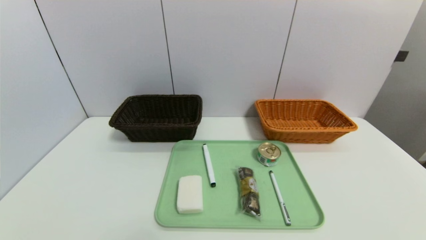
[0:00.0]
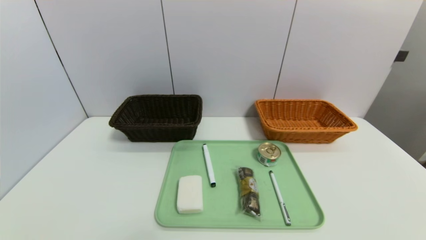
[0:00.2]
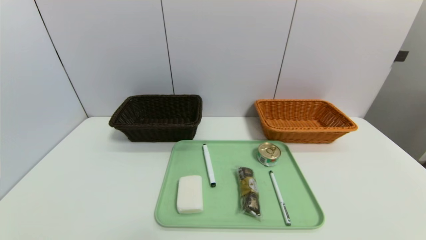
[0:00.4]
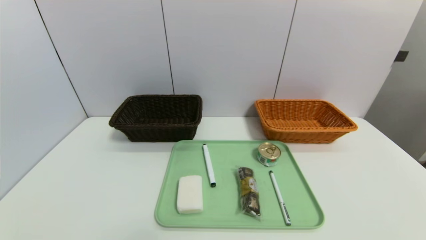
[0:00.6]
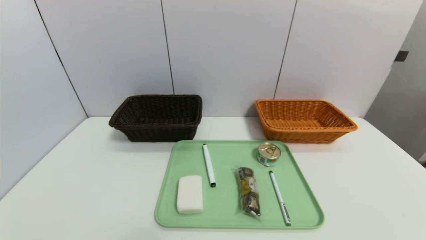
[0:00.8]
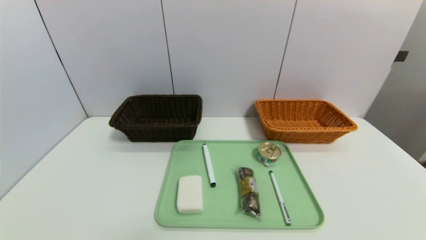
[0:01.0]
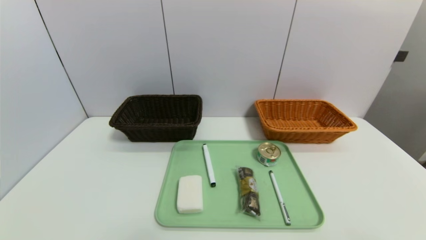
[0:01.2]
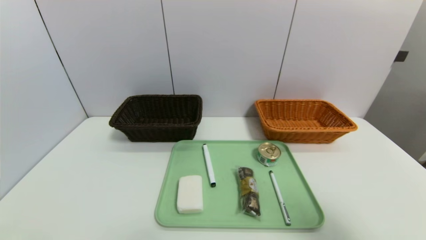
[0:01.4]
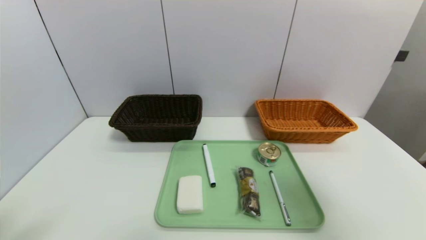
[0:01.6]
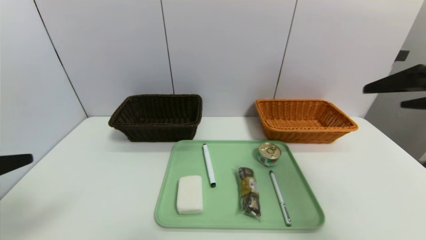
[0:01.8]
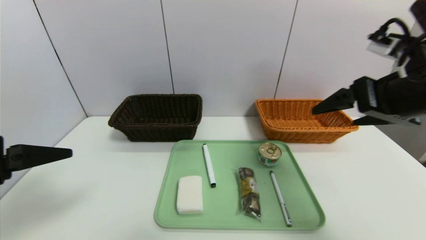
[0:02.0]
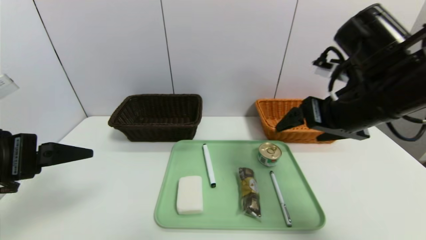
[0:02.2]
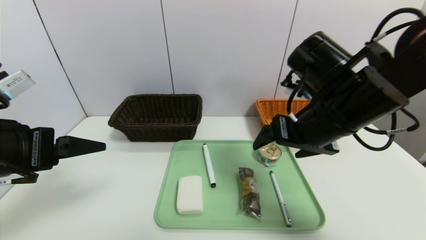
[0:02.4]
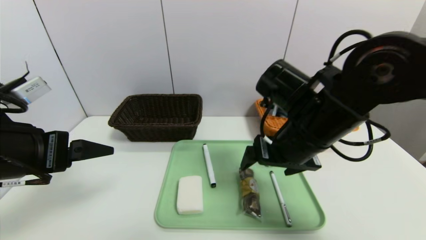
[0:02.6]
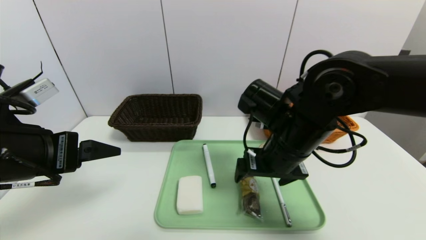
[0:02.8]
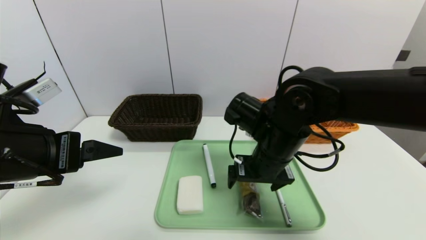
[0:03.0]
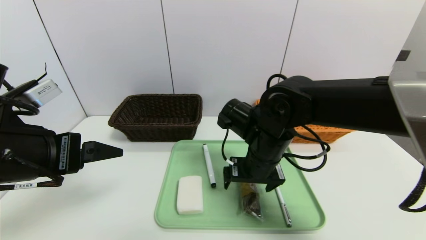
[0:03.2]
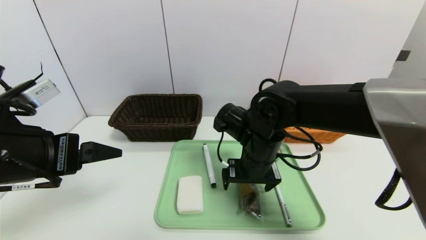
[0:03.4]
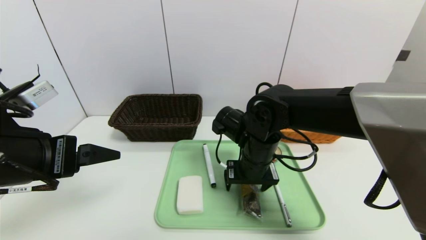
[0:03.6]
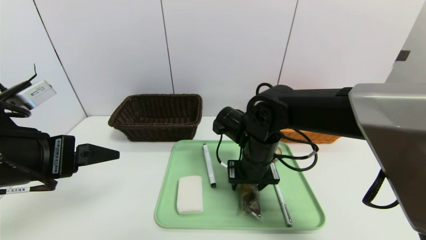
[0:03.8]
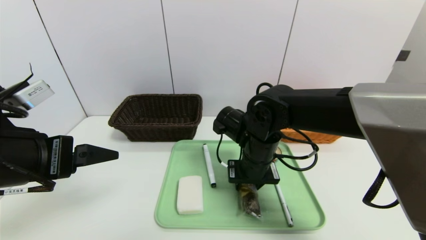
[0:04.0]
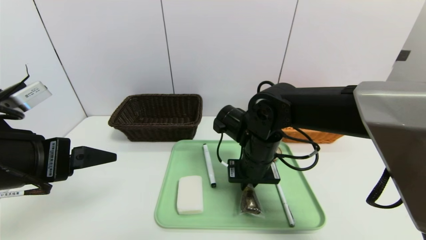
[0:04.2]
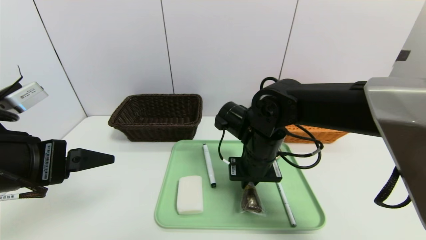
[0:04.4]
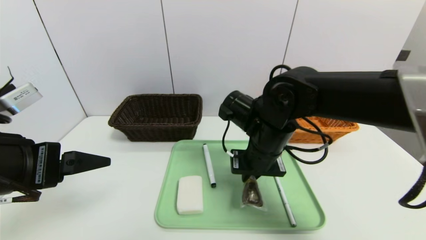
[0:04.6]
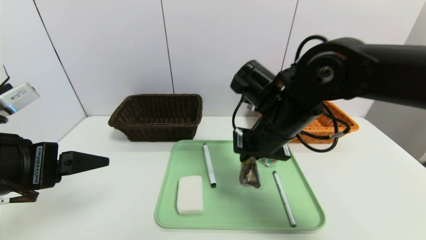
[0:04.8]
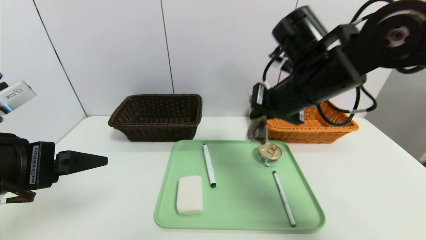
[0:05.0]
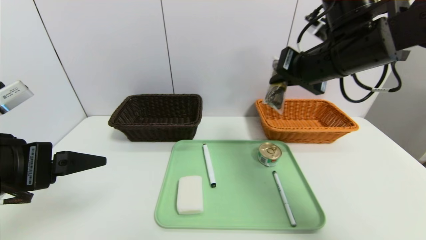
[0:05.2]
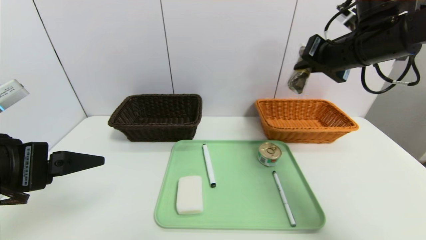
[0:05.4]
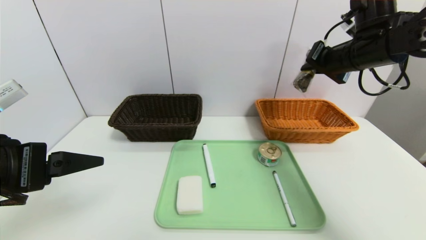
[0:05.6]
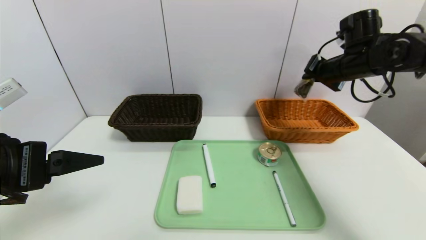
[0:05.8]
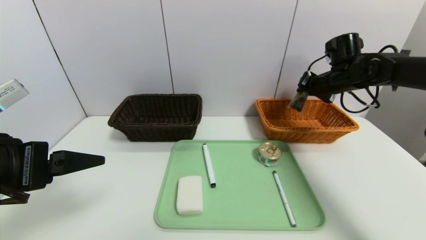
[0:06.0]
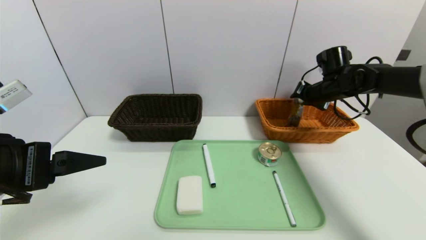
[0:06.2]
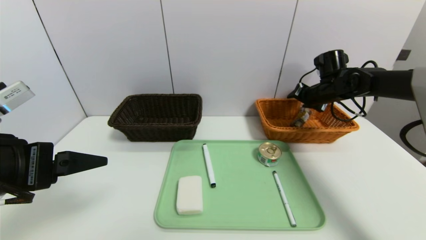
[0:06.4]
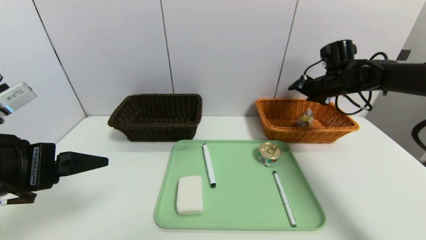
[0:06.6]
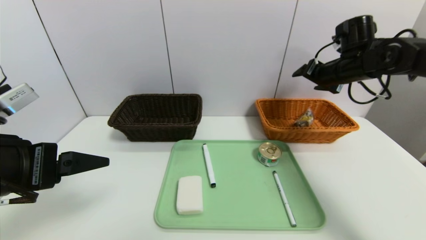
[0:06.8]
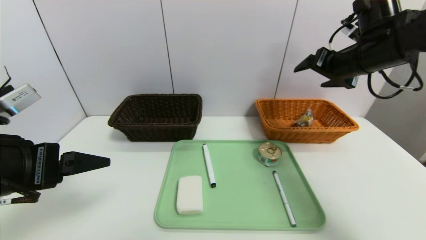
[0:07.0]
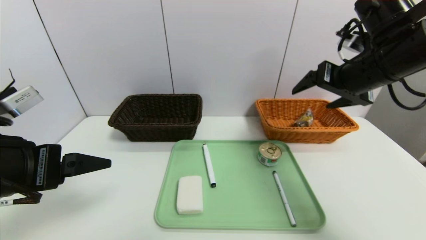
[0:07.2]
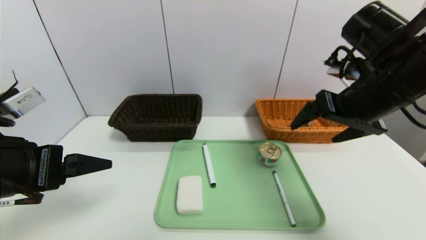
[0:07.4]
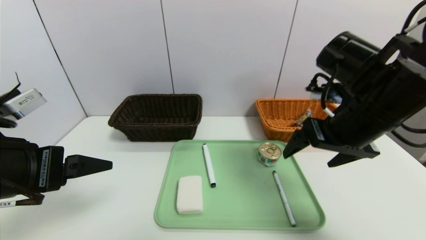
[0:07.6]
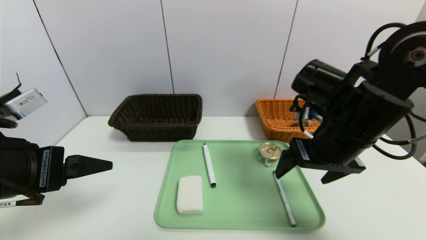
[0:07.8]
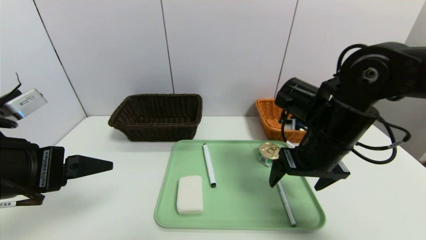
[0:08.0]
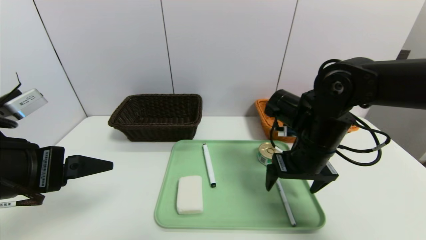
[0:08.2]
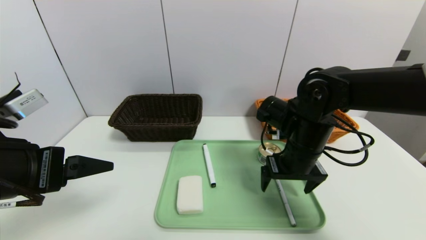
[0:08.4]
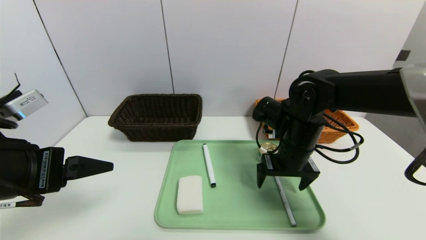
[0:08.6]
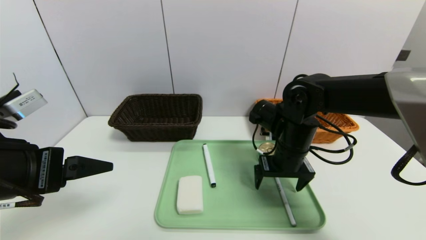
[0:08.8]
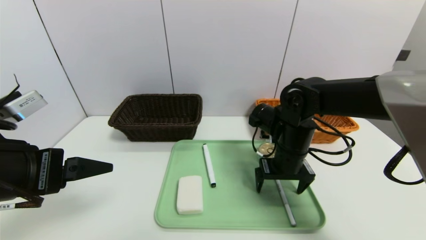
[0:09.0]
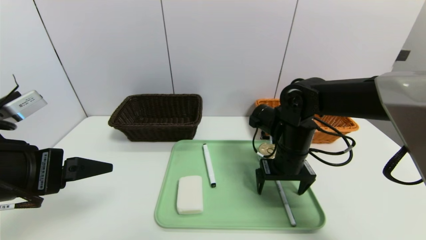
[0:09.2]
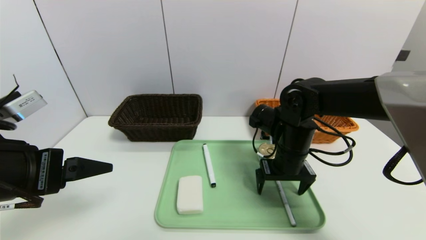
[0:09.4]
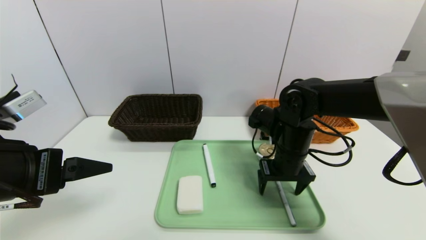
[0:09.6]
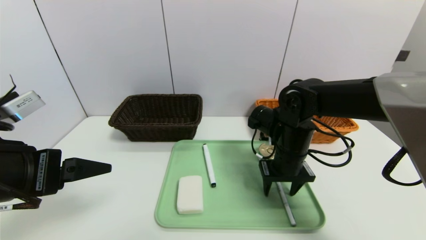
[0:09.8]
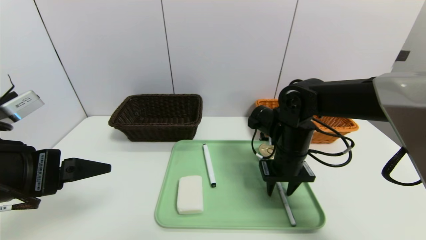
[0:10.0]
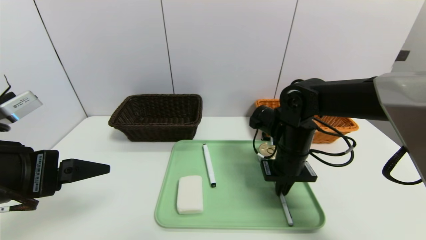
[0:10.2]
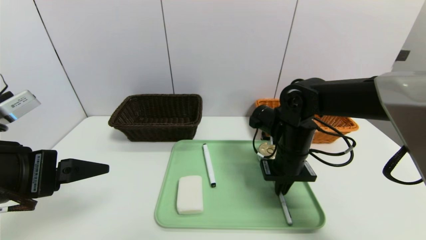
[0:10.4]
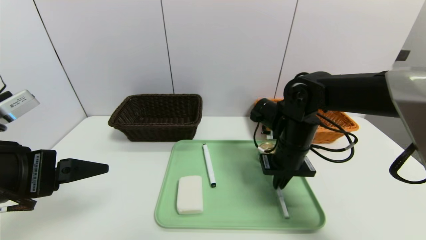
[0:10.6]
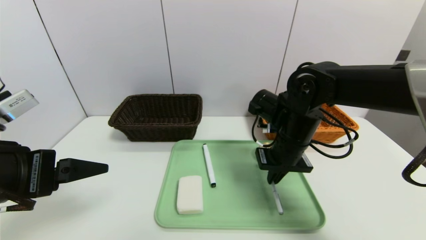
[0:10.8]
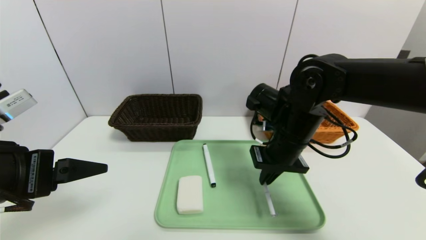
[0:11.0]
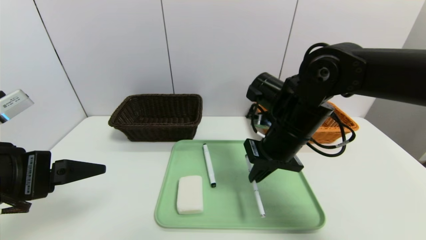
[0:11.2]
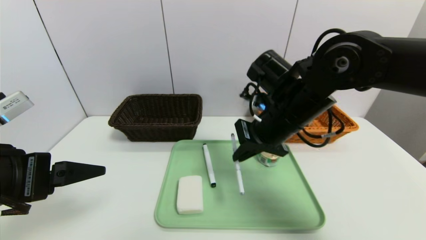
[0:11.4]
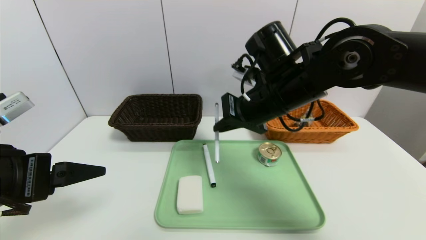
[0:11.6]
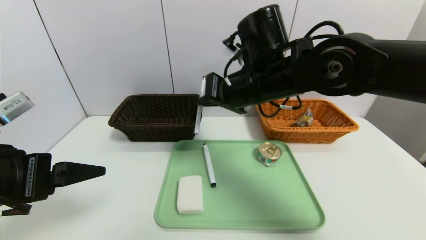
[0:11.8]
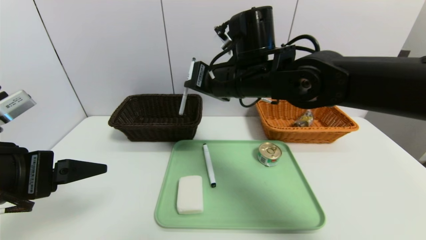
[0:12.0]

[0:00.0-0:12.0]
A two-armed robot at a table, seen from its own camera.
Task of the whole recording: place the food in the right basket with the right gripper, and place the non food items in the left basket with the left gripper.
Step, 0:00.0 to 0:06.6: Grasp the chocolate and put it in the right basket.
0:00.0 to 0:01.6: The left gripper shifts about 20 cm upward; the right gripper goes about 30 cm upward and forward.
0:01.6 to 0:03.0: The left gripper goes roughly 15 cm forward and to the right; the right gripper moves to the left, downward and forward, about 30 cm.
0:03.0 to 0:04.4: The right gripper closes up.
0:04.4 to 0:06.0: The right gripper shifts approximately 25 cm to the right and forward.
0:06.0 to 0:07.6: The right gripper is displaced backward and to the left by some 25 cm, and opens up.
0:07.6 to 0:09.0: The right gripper shifts approximately 15 cm downward, forward and to the left.
0:09.0 to 0:10.4: The right gripper closes its fingers.
0:10.4 to 0:12.0: The right gripper moves upward and to the left, approximately 15 cm.

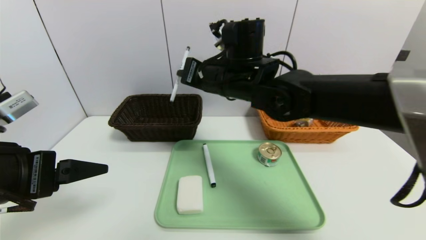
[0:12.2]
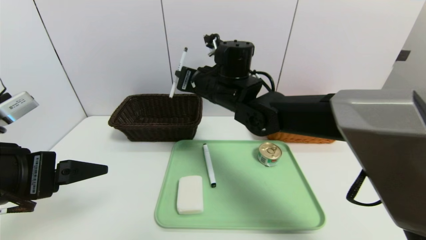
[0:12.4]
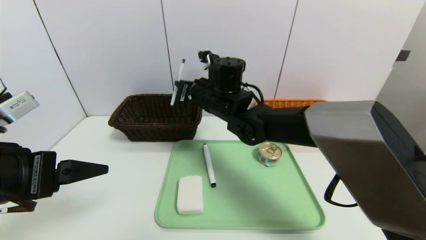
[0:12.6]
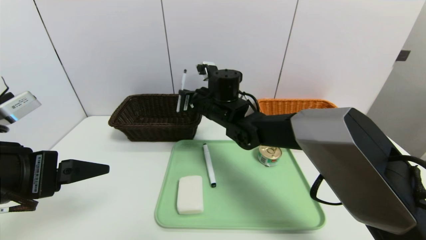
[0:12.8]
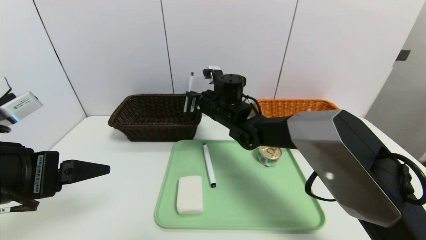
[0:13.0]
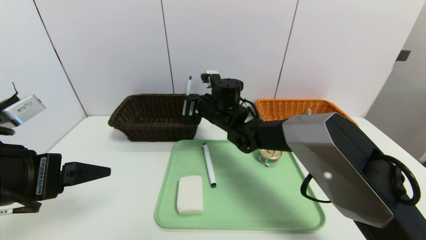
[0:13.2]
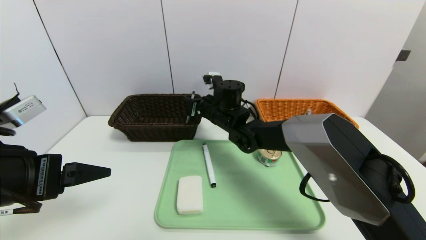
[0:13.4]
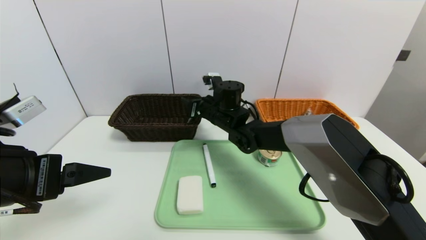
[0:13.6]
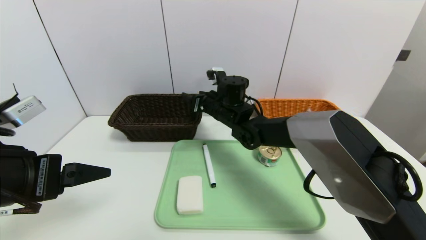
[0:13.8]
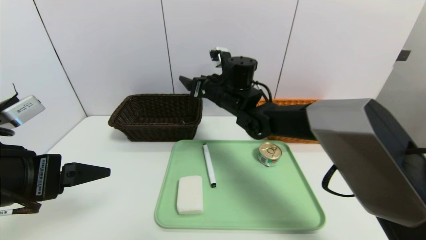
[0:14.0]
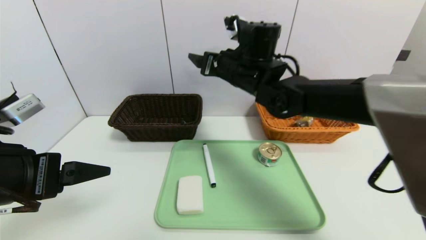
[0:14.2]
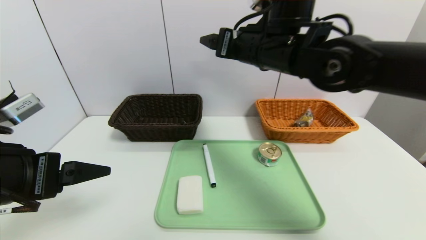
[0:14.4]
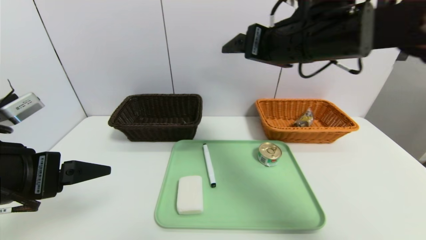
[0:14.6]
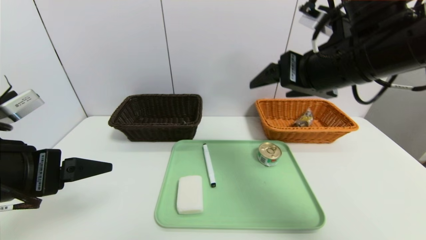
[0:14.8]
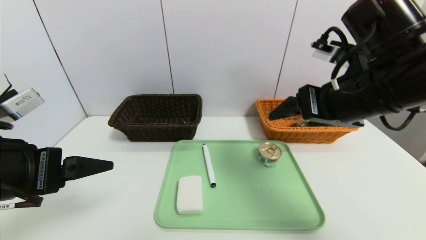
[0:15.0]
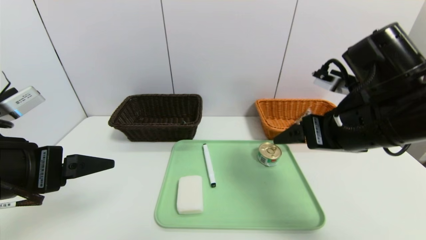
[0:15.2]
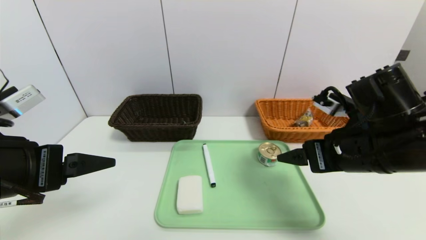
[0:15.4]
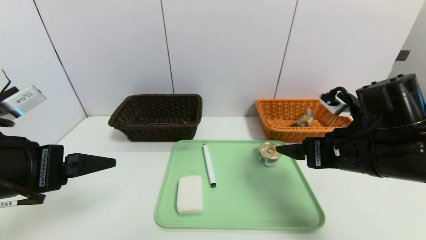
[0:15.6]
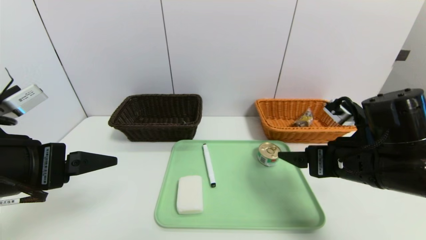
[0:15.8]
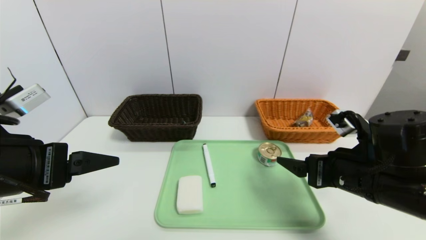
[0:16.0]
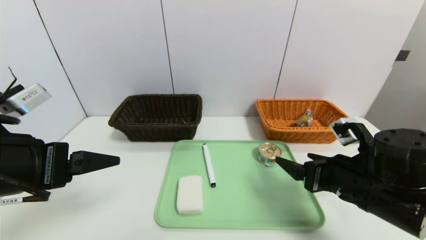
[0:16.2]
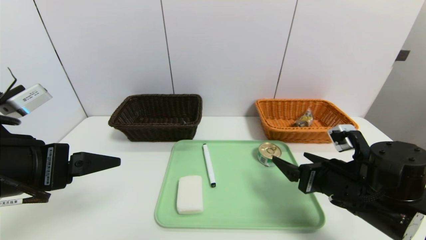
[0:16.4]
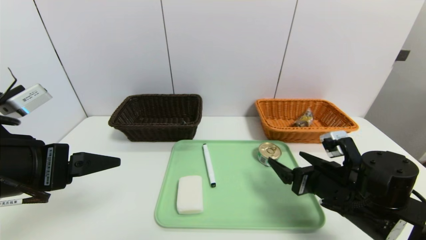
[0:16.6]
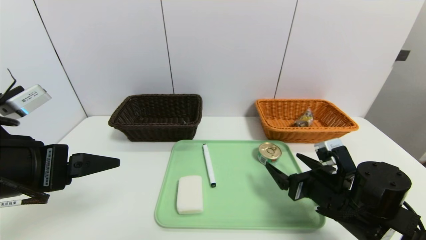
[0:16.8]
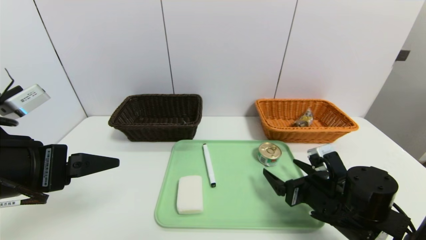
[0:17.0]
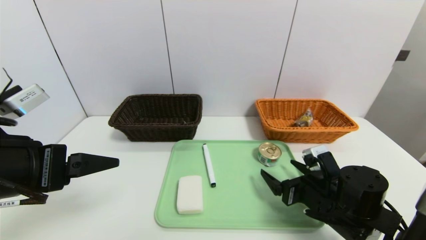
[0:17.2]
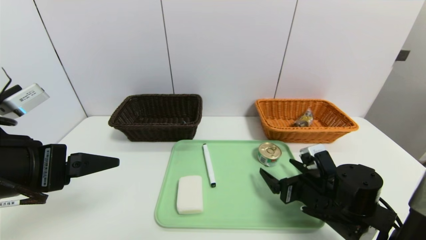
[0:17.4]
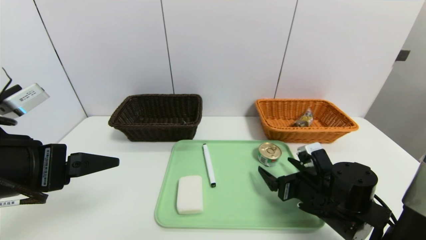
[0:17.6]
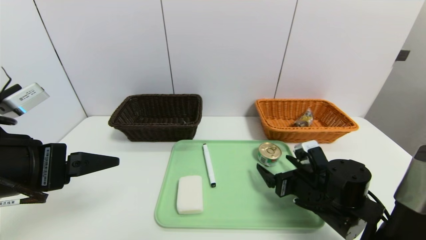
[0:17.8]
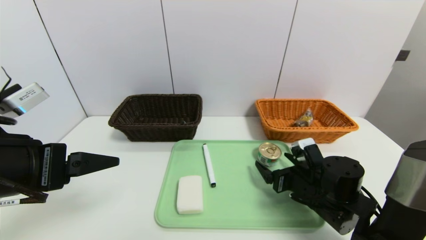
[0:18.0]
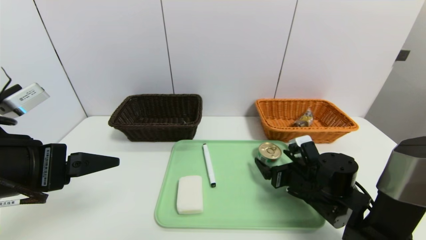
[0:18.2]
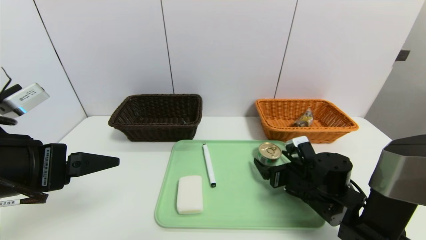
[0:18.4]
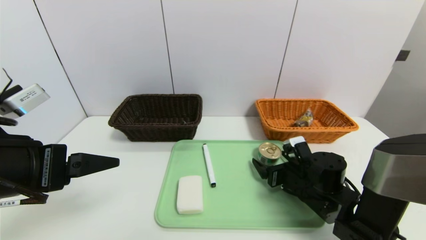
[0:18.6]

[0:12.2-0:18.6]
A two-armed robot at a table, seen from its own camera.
Task of the whole recording: place the food in the right basket with the right gripper, and place the non food items in the left basket with the left gripper.
0:12.2 to 0:13.8: The right gripper travels downward and forward by some 15 cm, and opens its fingers.
0:13.8 to 0:15.4: The right gripper travels backward and to the right by about 30 cm.
0:15.4 to 0:17.0: The right gripper travels downward by approximately 15 cm.
0:17.0 to 0:18.6: The right gripper is displaced forward by about 5 cm.
